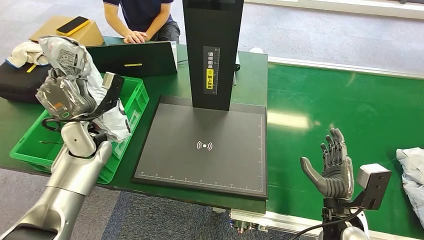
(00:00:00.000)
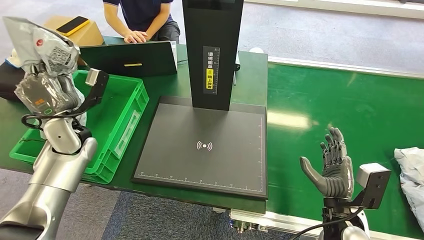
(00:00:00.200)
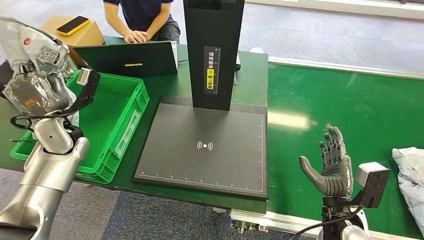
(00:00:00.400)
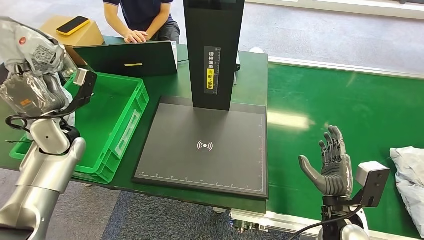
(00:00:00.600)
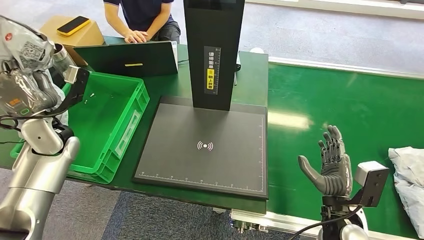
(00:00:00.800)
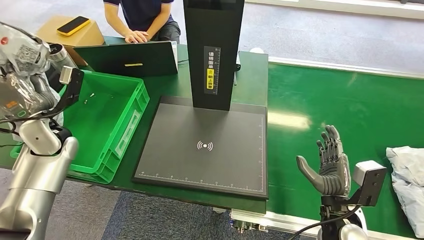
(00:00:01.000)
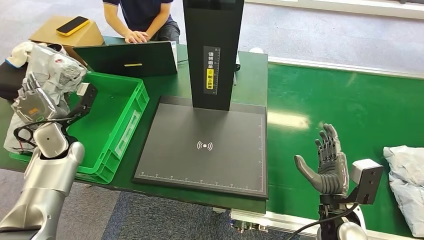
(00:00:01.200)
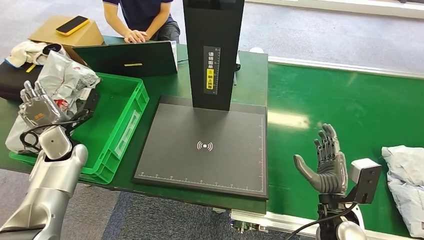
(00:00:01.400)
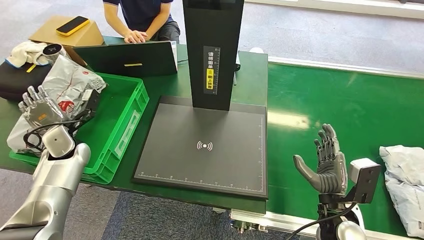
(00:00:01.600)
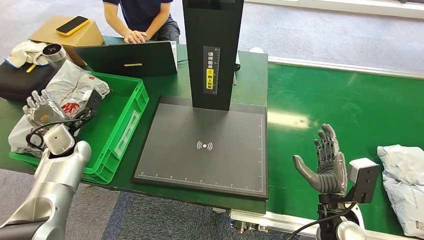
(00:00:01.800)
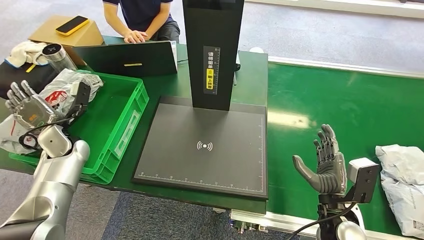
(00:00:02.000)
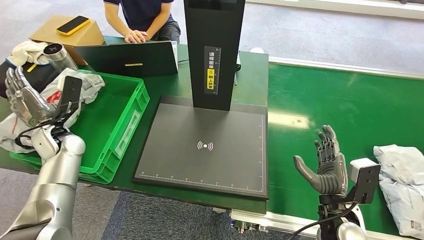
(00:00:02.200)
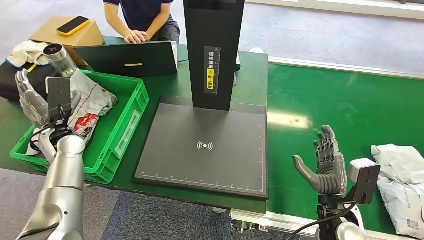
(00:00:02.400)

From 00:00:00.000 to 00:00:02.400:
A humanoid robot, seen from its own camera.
Task of the whole recording: Weigh the package on the weighing device and place it in the left basket.
Step, from 00:00:00.000 to 00:00:02.200: Place the package into the parcel locker.
